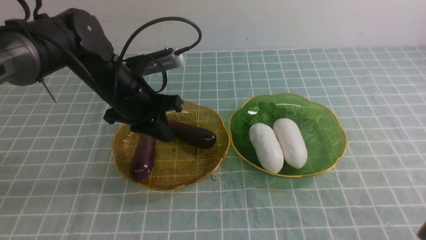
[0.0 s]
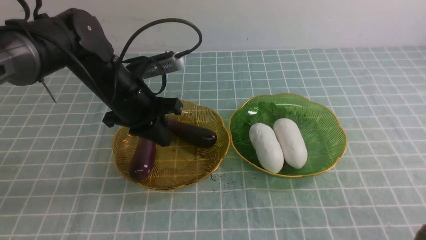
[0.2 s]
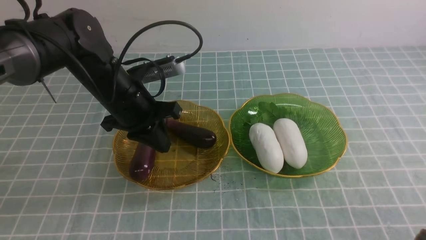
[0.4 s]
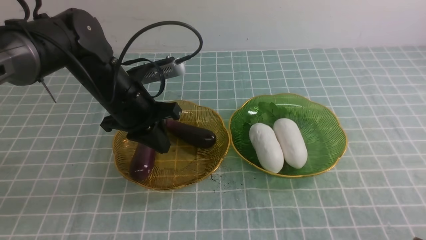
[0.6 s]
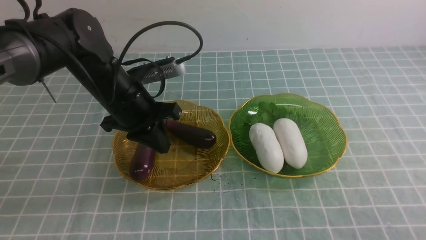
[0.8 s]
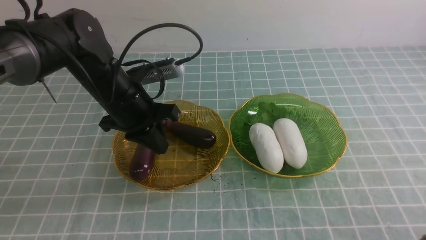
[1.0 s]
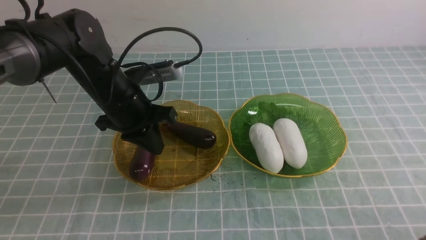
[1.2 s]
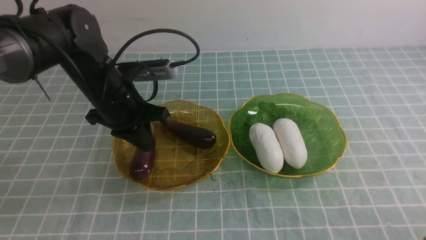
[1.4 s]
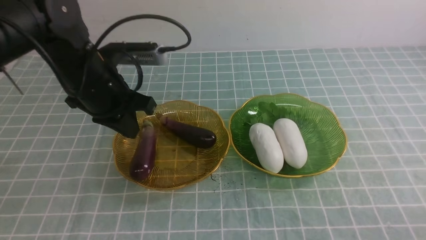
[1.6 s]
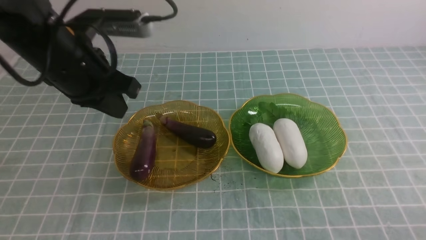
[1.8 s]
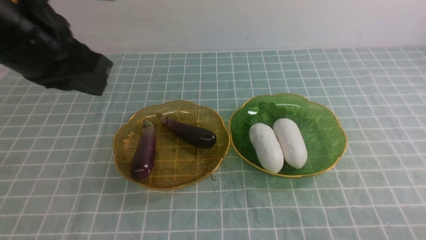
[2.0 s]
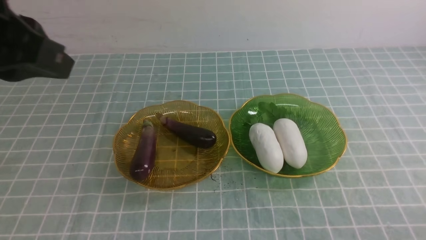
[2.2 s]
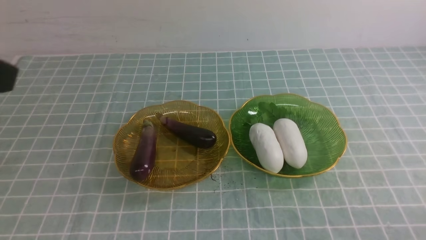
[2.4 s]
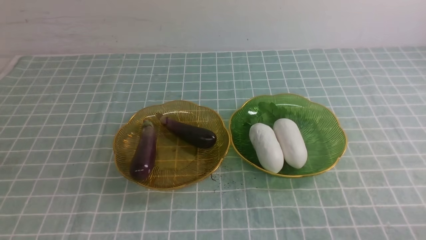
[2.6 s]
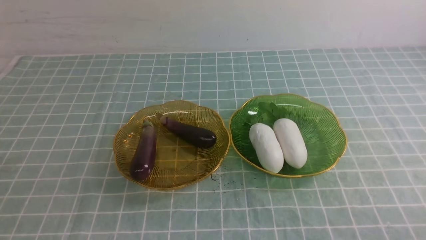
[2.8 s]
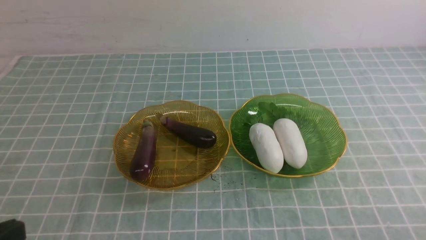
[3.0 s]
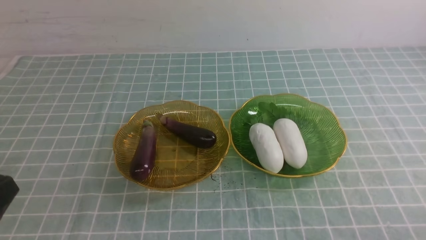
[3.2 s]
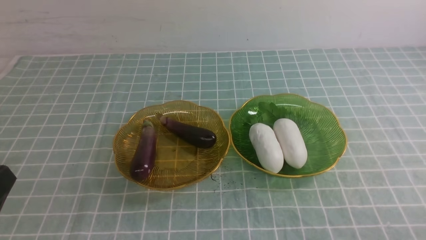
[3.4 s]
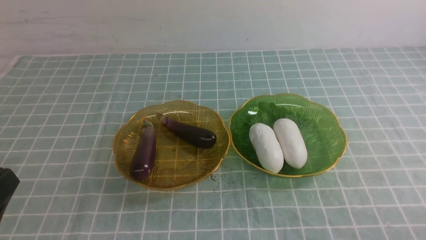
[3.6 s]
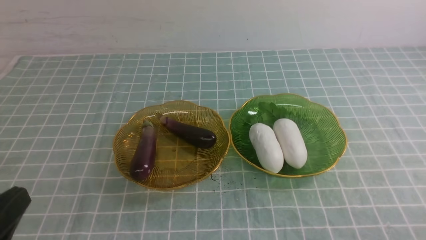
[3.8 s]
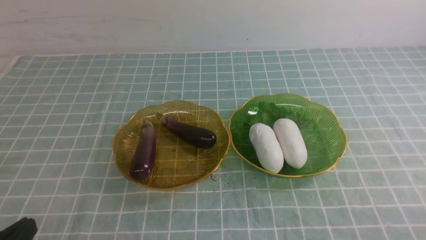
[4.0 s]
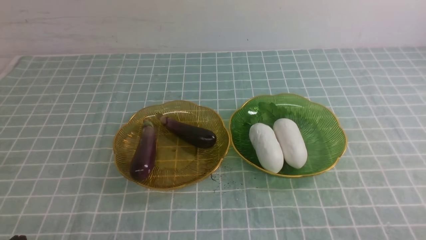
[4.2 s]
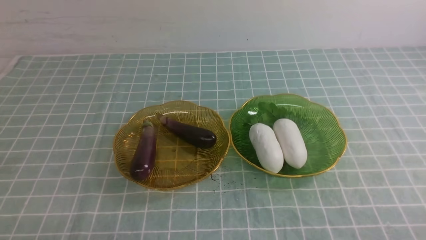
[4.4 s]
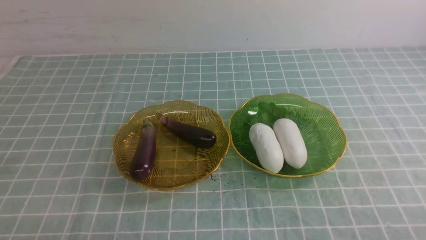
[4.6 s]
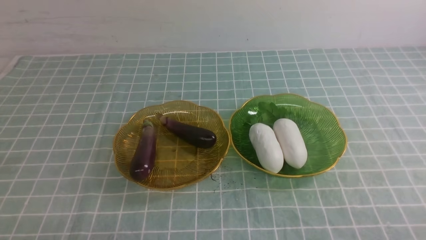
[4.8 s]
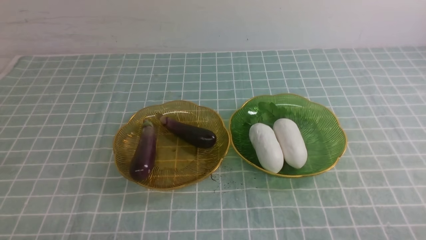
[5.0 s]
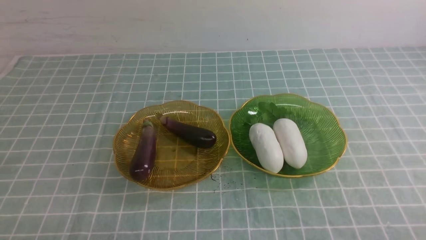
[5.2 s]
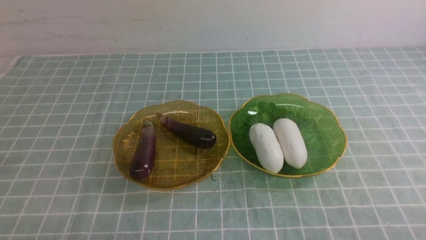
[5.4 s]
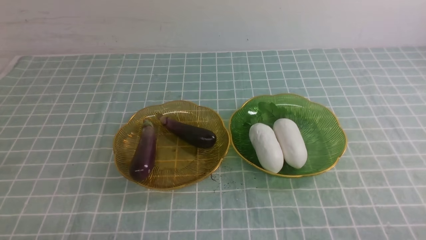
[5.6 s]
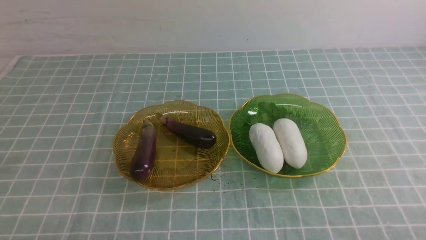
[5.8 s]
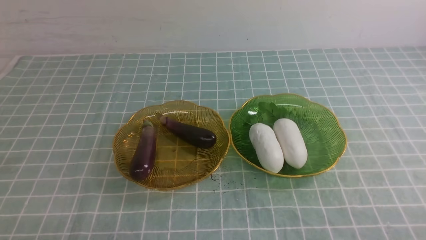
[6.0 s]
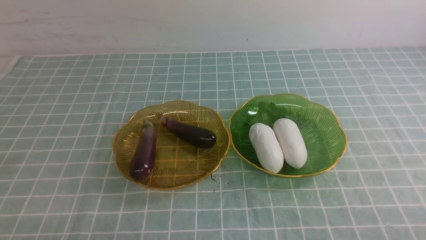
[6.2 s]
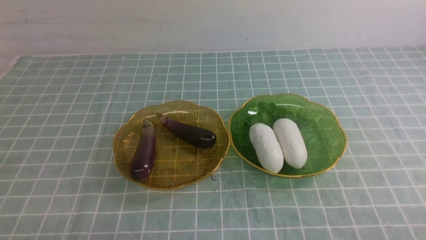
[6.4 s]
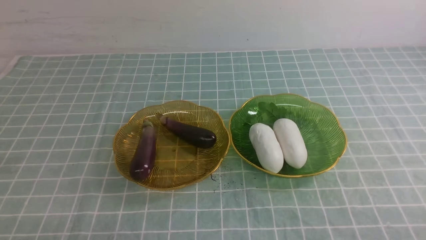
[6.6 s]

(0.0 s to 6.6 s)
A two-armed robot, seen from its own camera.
0.0 s - 1.6 s: The left gripper is displaced upward by approximately 5 cm, while the right gripper goes roughly 5 cm downward.
1.6 s - 3.2 s: The left gripper moves backward, some 30 cm.
5.0 s - 6.6 s: The two grippers keep their place.
